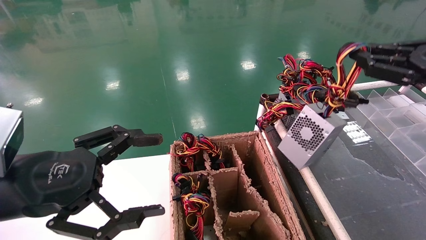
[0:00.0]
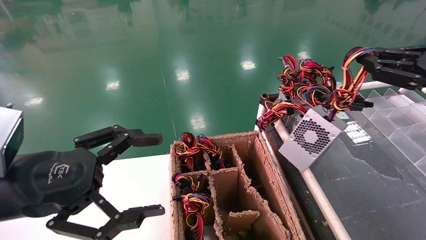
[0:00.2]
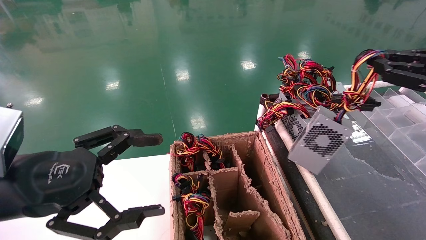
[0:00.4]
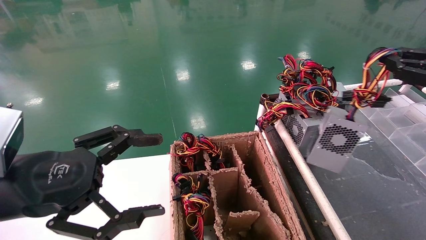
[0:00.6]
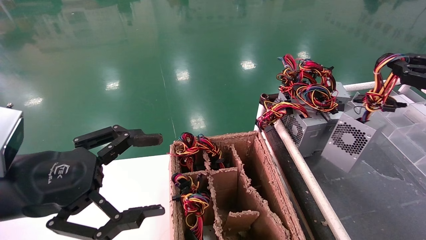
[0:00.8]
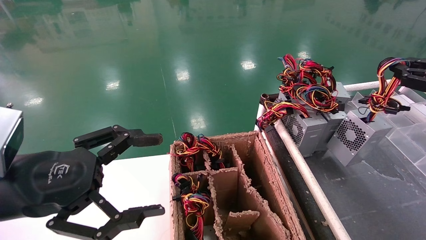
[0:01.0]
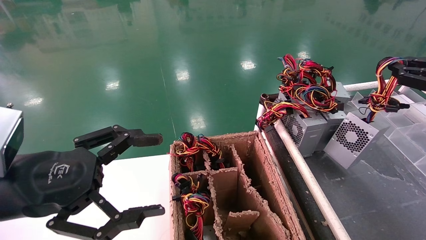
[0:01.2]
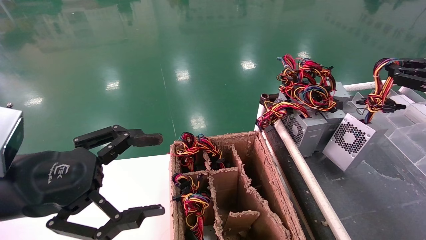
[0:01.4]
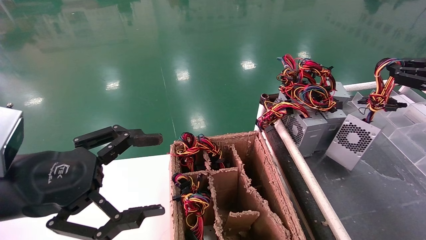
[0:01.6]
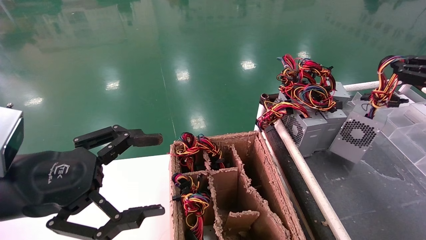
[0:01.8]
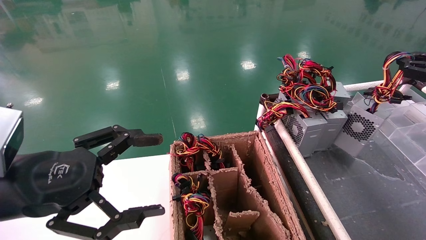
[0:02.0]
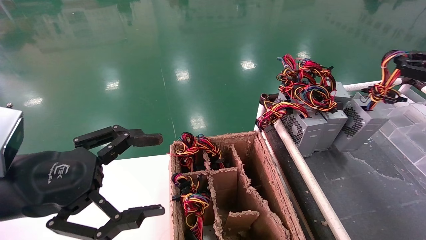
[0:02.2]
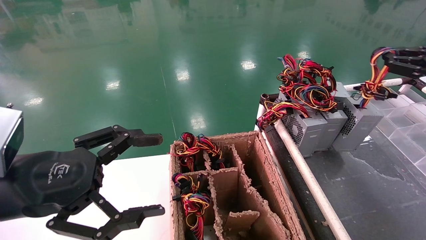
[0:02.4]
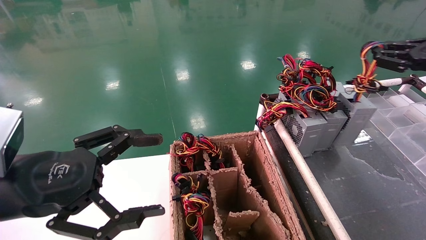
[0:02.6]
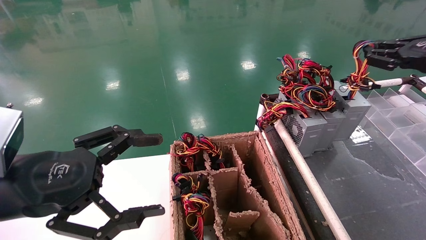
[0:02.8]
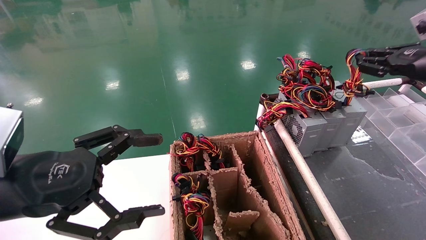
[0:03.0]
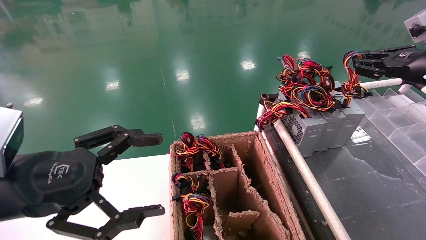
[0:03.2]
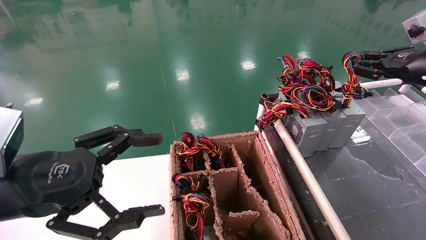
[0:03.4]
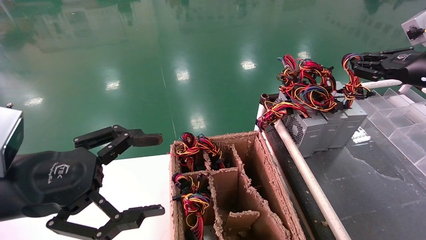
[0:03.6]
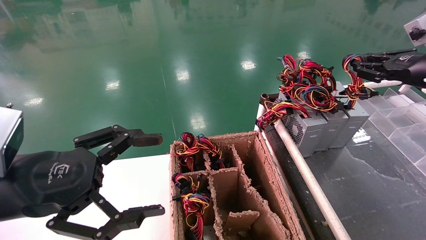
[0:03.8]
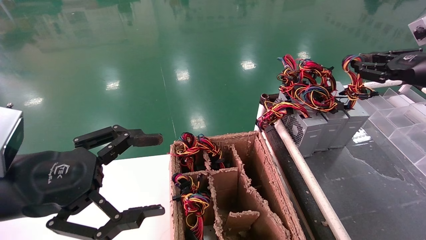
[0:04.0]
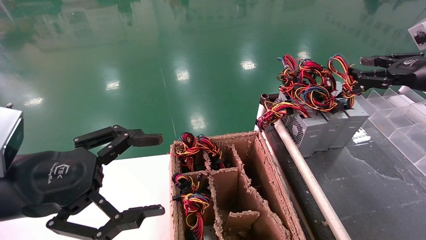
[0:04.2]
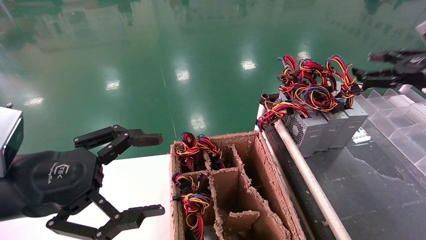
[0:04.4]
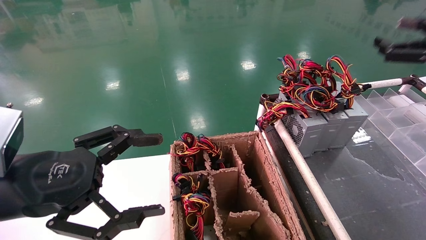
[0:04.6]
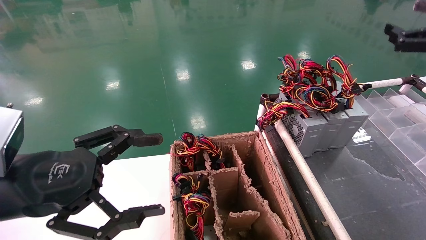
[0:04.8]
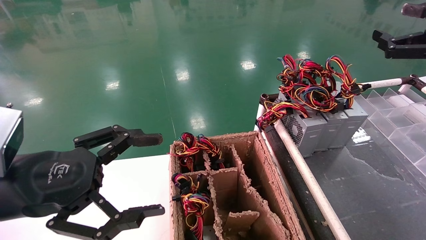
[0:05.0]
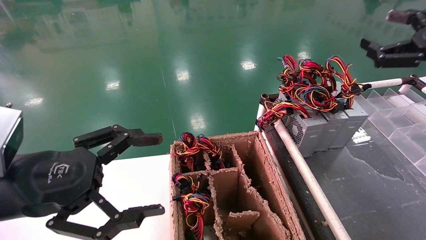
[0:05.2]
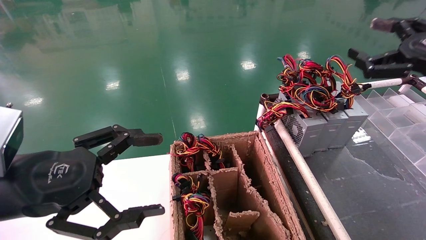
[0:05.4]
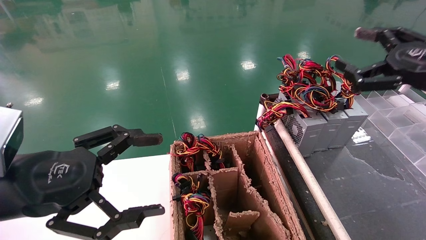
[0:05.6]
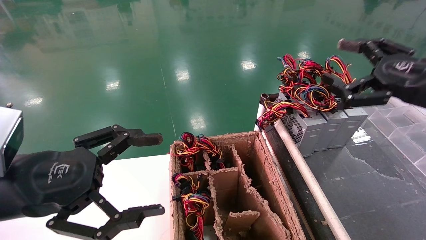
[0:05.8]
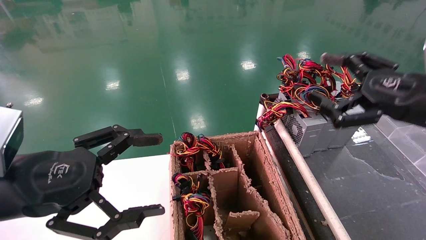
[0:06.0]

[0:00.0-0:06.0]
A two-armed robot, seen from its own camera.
Step, 0:00.0 to 0:04.0: Place the power supply on the operating table.
0:00.0 to 0:01.6: The right gripper goes roughly 10 cm to the right.
0:01.6 to 0:03.0: The right gripper travels forward by approximately 5 cm.
0:03.0 to 0:04.4: The right gripper opens.
0:04.4 to 0:06.0: The right gripper heads to the left and backward, covering approximately 10 cm, and opens up.

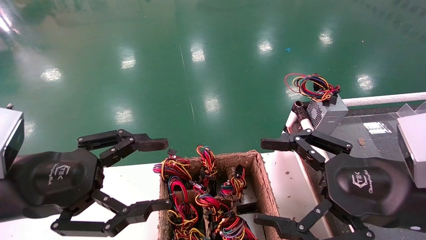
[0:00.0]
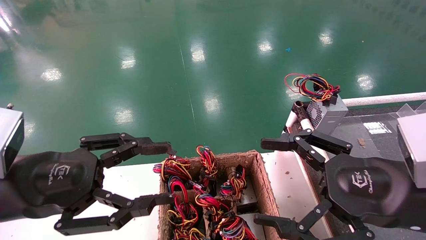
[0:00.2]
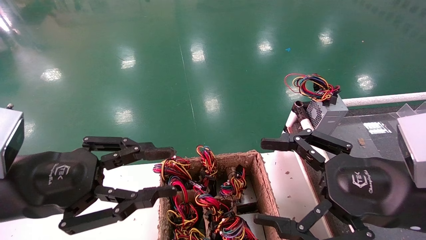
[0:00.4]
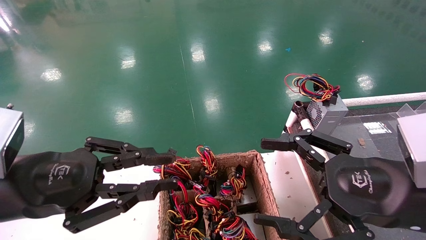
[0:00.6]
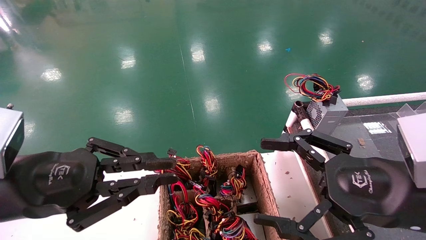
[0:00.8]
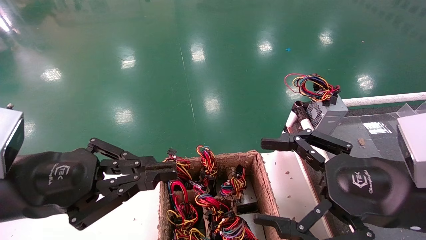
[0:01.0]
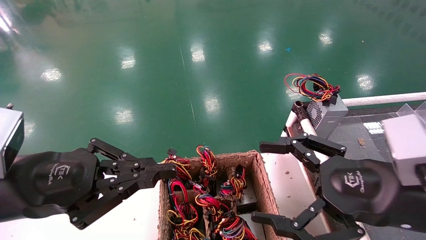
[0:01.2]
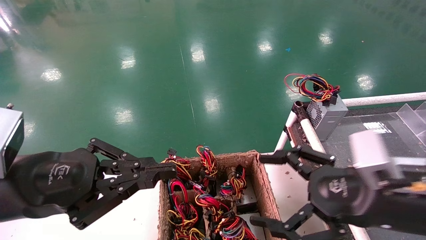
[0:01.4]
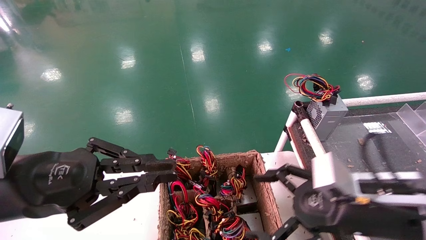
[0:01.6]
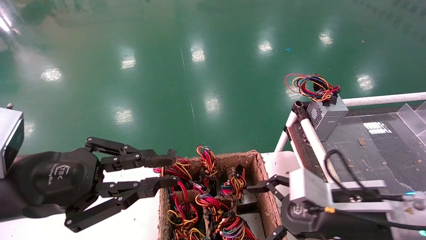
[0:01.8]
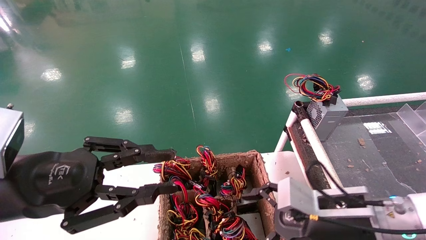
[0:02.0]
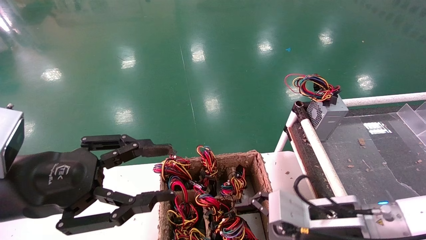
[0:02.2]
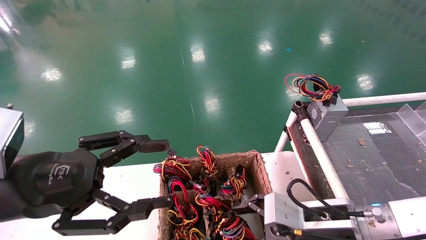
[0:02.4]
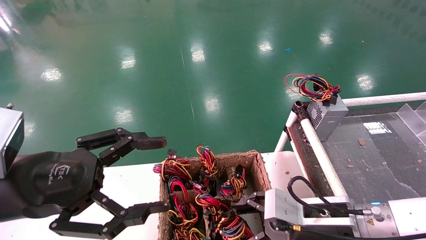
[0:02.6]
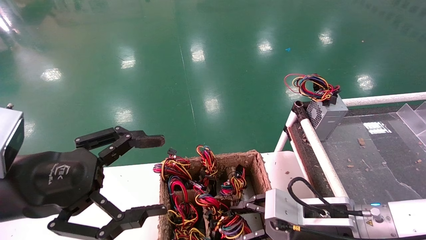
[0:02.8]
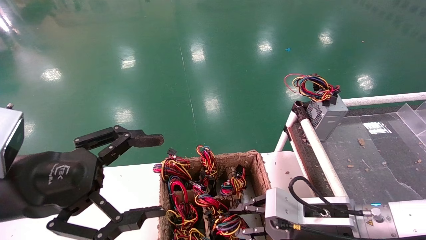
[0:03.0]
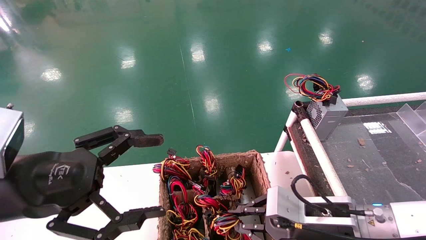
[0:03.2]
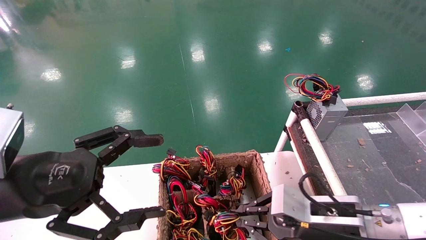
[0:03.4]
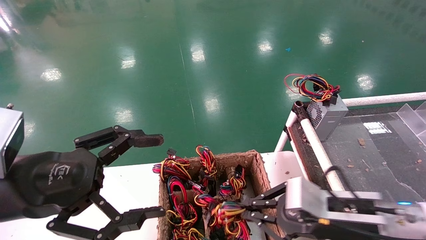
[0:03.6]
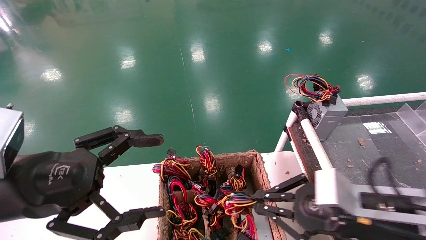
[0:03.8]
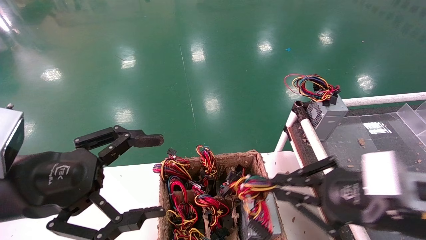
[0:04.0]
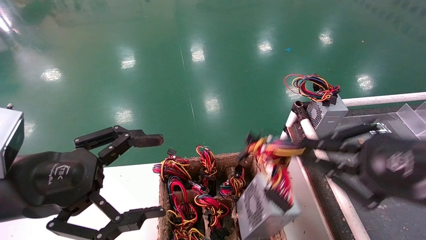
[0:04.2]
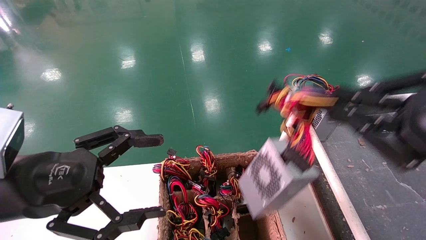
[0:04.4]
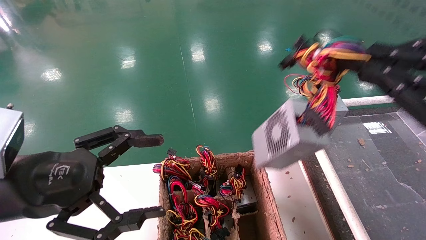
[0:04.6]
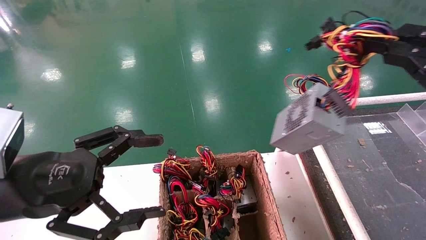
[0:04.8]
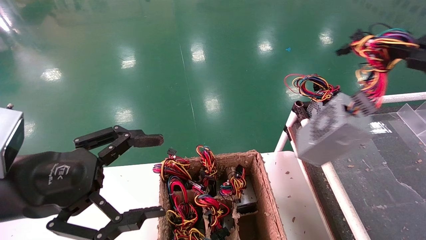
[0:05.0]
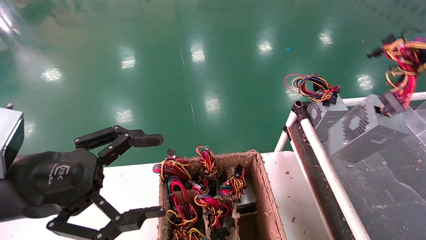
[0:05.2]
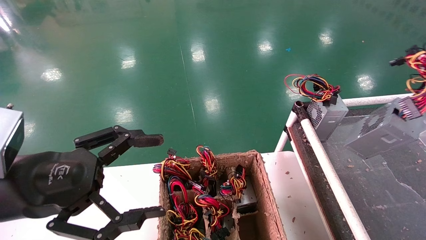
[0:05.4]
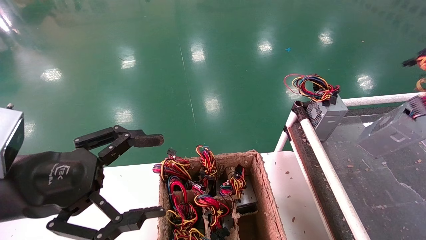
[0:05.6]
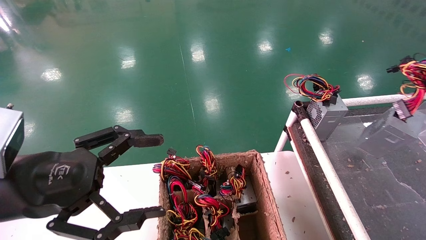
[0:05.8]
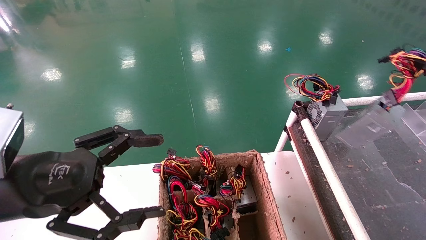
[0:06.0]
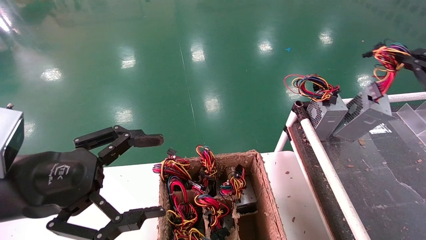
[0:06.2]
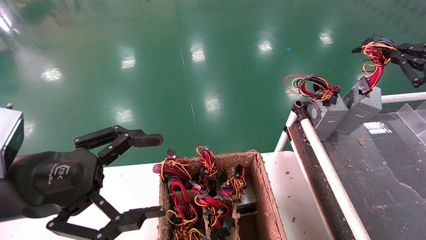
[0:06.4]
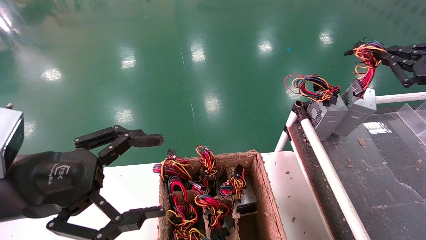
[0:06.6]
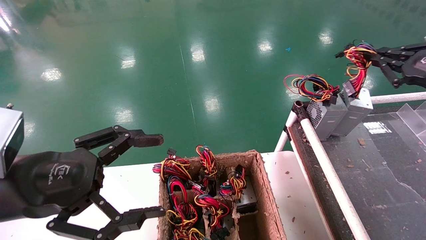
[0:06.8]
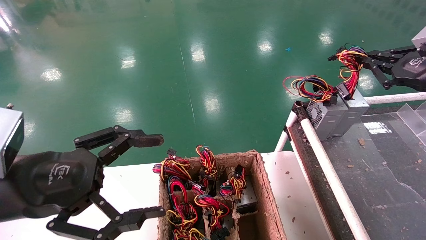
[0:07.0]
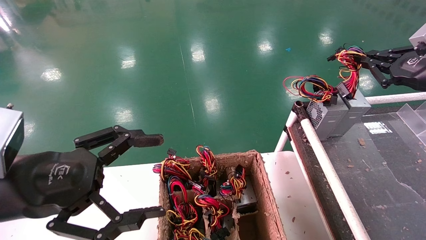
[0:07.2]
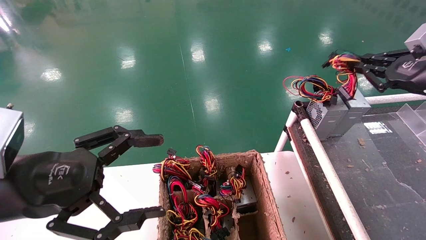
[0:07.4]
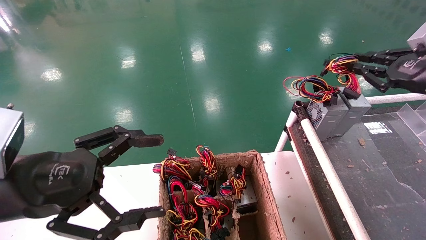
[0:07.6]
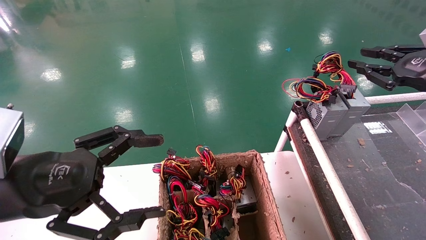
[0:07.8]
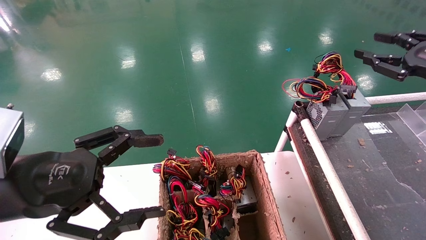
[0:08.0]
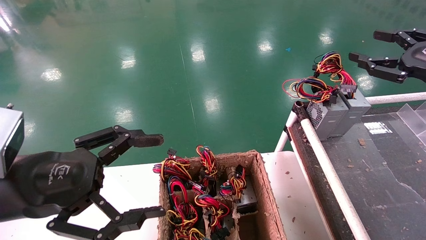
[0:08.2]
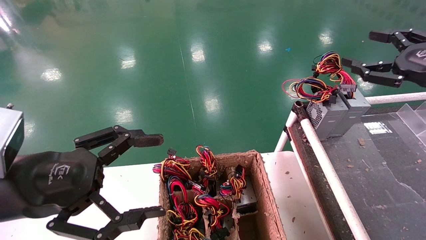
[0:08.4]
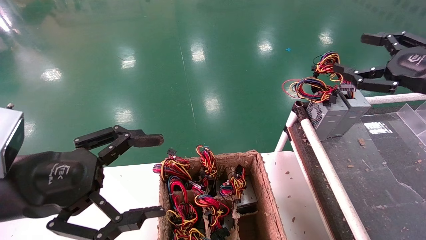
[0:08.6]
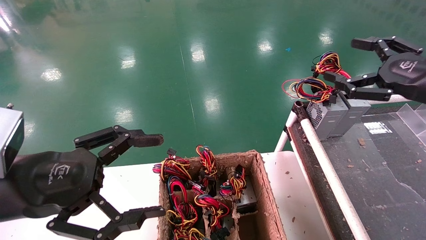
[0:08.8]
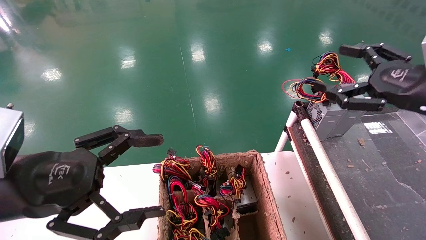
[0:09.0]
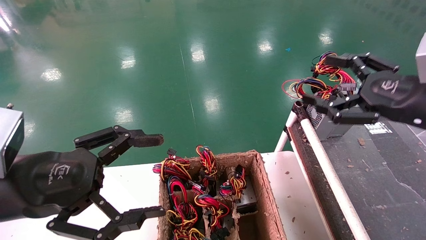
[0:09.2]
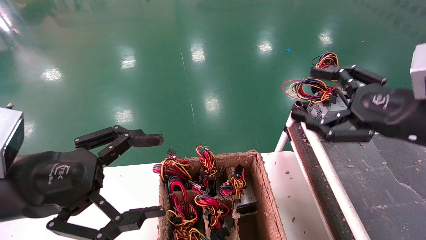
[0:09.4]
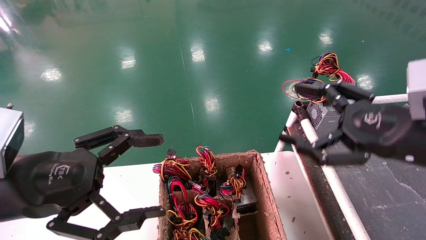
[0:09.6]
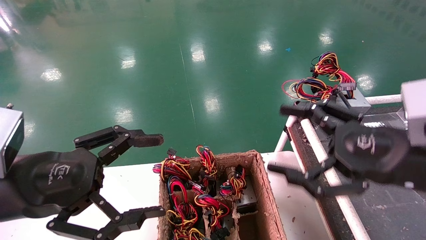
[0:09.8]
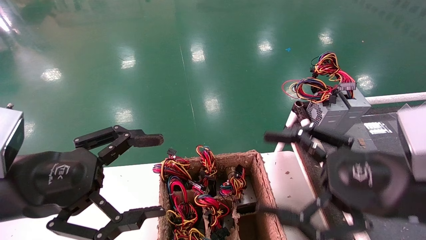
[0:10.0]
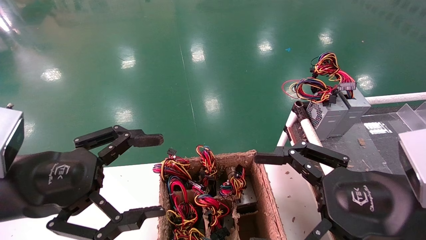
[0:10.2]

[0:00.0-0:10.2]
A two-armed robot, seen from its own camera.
Step, 0:01.6 to 0:03.8: Grab and lift the power supply from the large box.
Step, 0:04.0 to 0:08.0: Place the power supply on the operating table.
0:00.0 to 0:01.4: The left gripper closes its fingers.
0:01.4 to 0:03.0: The left gripper opens up; the right gripper travels downward and forward by roughly 10 cm, and closes its fingers.
0:03.0 to 0:04.4: The right gripper goes approximately 25 cm upward, to the right and backward, and closes up.
0:04.4 to 0:05.8: The right gripper heads to the right, covering some 15 cm.
0:05.8 to 0:07.2: The right gripper goes about 15 cm forward and to the left.
0:07.2 to 0:08.8: The right gripper shifts by roughly 5 cm, and opens.
0:08.8 to 0:10.2: The right gripper is displaced to the left, backward and downward by some 20 cm.
